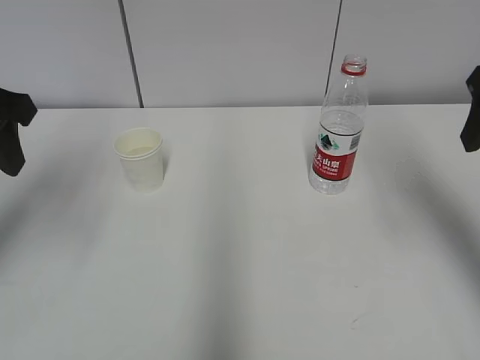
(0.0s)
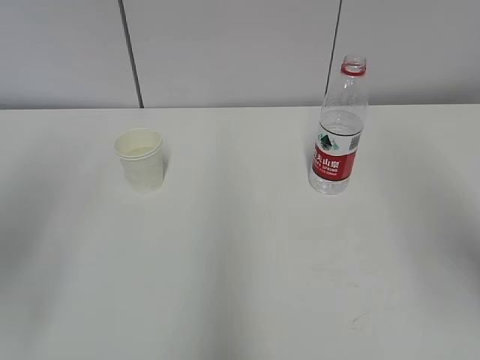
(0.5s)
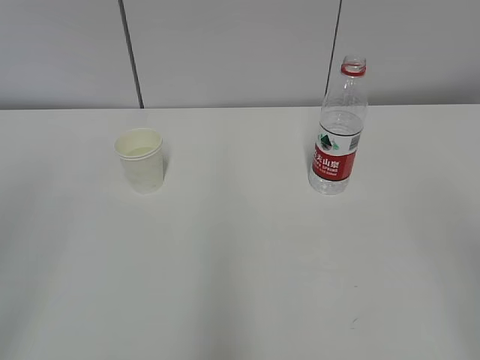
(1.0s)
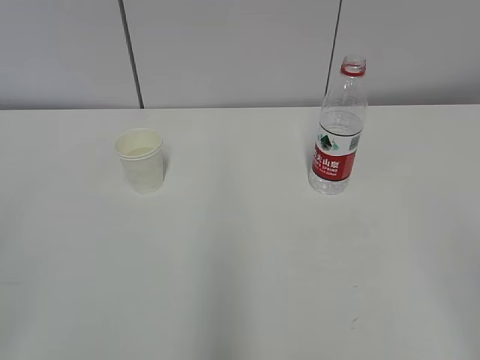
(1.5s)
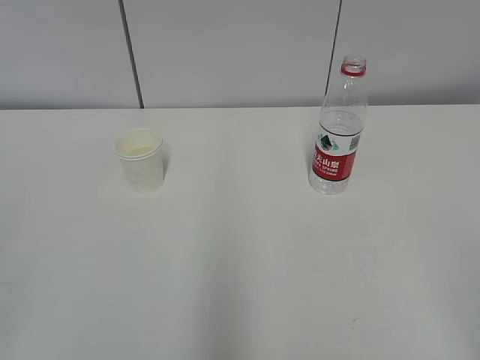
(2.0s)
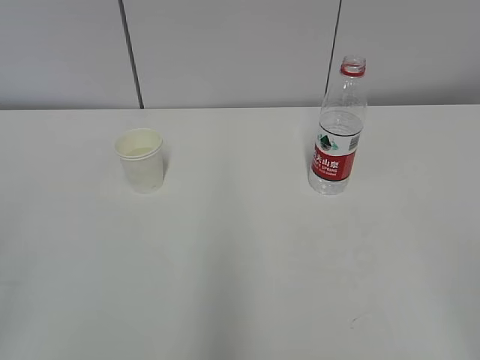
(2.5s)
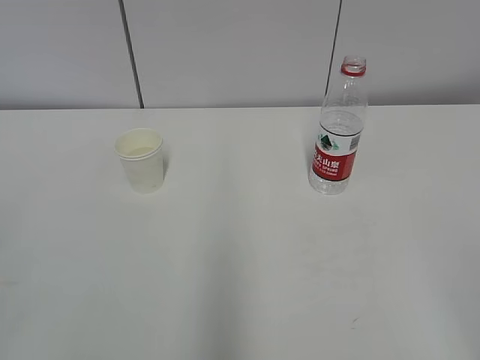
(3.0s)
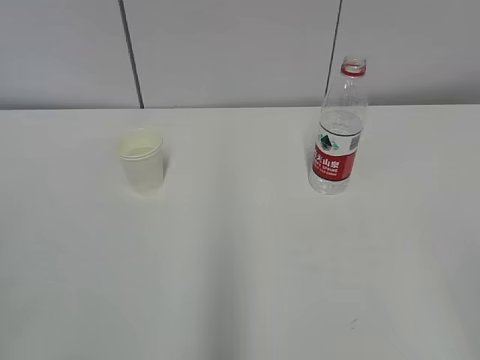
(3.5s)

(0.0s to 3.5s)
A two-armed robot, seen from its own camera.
0.0s - 2.0s: Both grippers move backward, some 30 cm.
